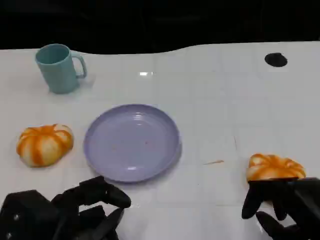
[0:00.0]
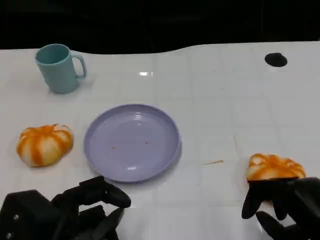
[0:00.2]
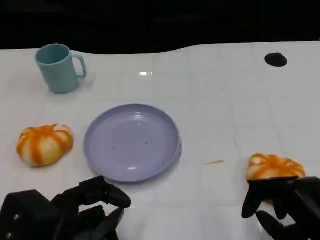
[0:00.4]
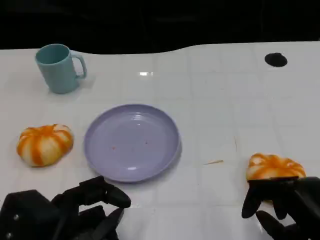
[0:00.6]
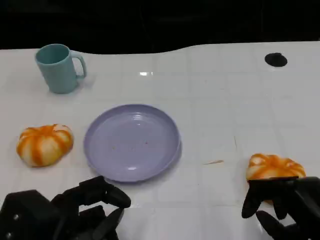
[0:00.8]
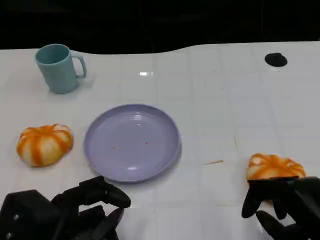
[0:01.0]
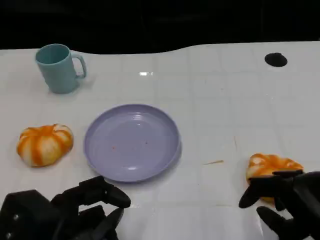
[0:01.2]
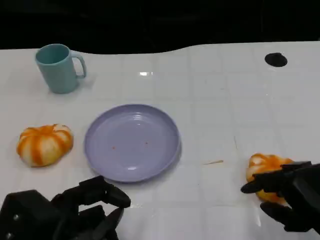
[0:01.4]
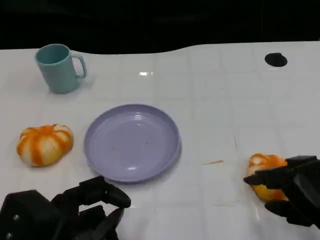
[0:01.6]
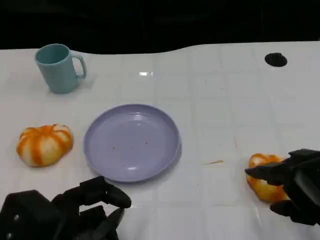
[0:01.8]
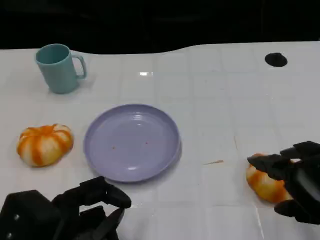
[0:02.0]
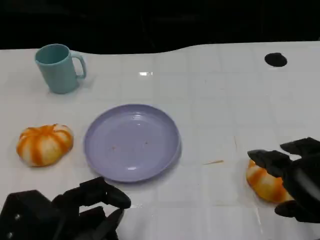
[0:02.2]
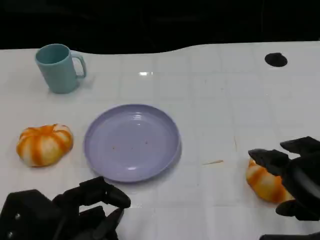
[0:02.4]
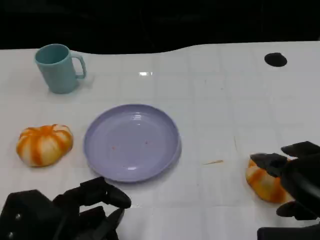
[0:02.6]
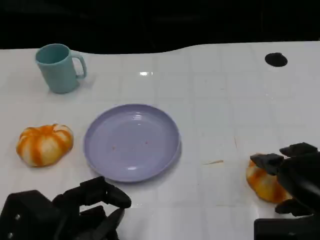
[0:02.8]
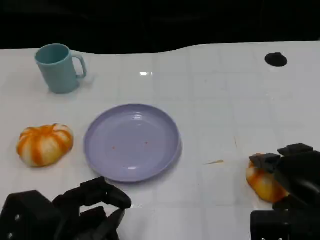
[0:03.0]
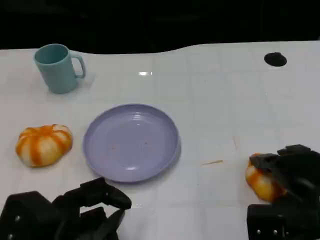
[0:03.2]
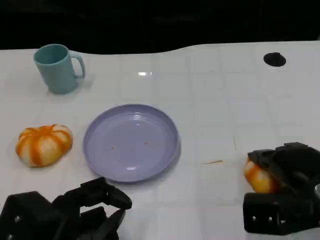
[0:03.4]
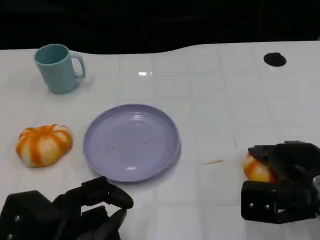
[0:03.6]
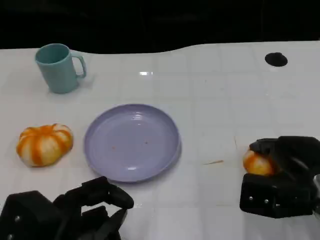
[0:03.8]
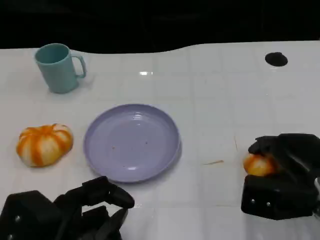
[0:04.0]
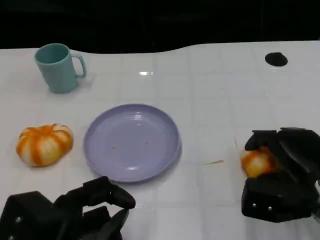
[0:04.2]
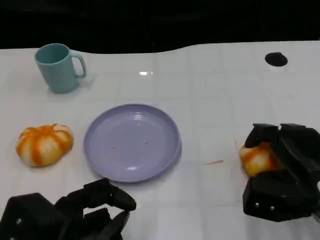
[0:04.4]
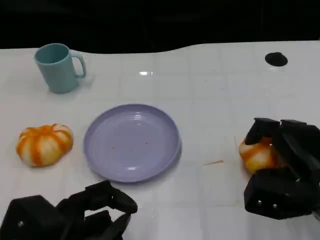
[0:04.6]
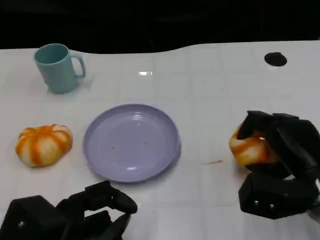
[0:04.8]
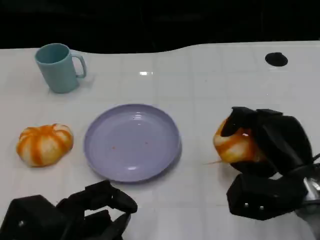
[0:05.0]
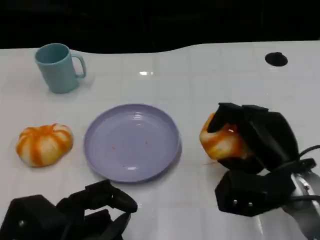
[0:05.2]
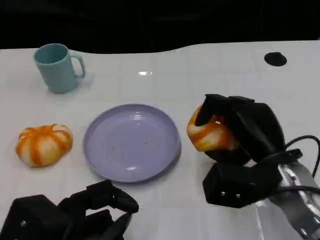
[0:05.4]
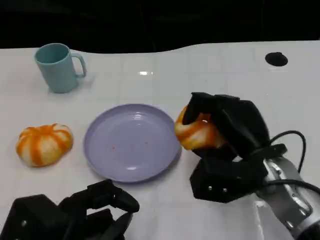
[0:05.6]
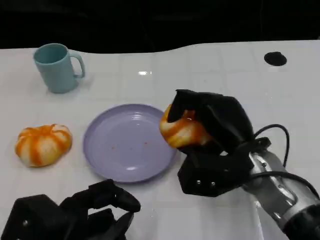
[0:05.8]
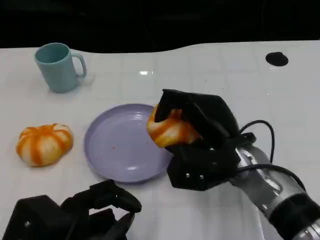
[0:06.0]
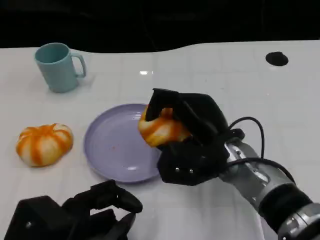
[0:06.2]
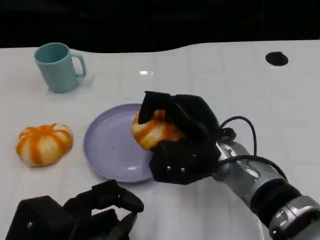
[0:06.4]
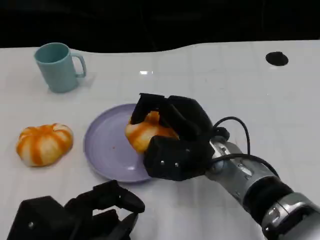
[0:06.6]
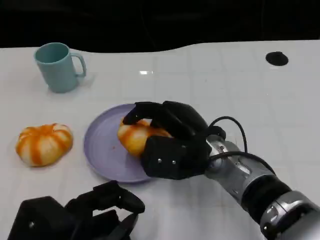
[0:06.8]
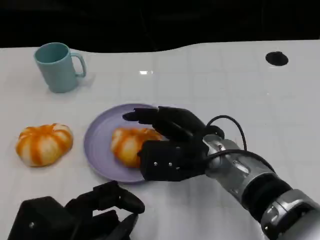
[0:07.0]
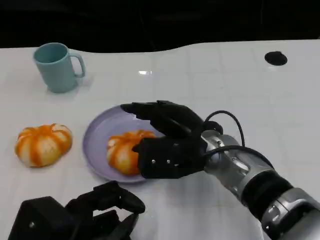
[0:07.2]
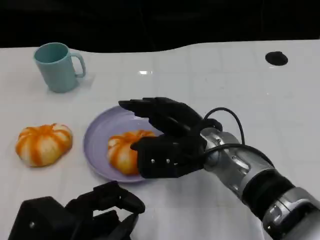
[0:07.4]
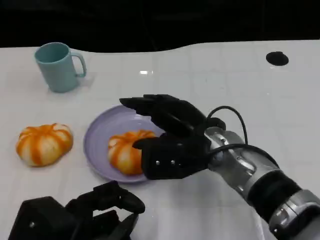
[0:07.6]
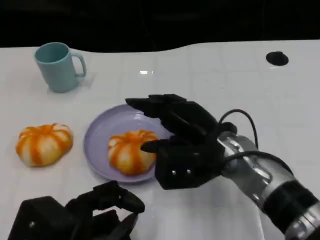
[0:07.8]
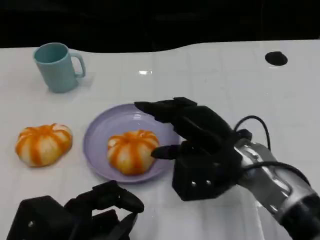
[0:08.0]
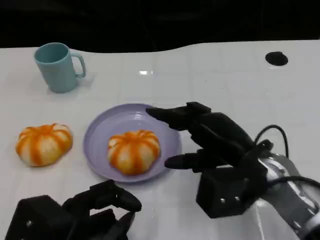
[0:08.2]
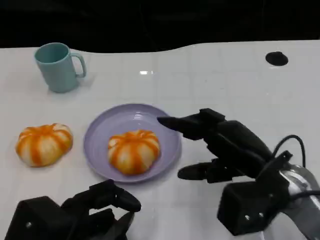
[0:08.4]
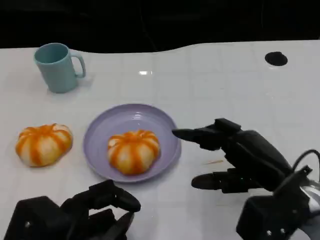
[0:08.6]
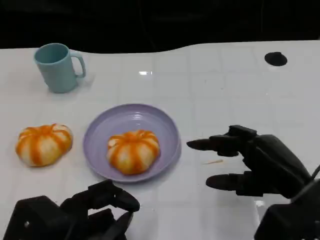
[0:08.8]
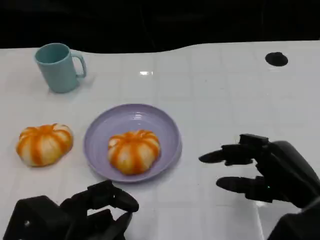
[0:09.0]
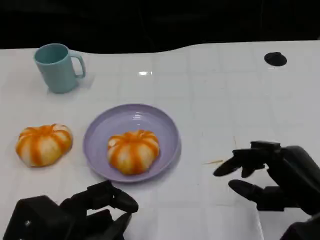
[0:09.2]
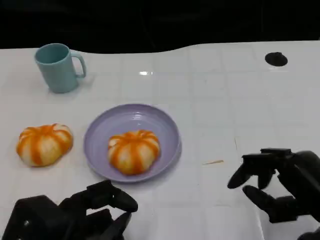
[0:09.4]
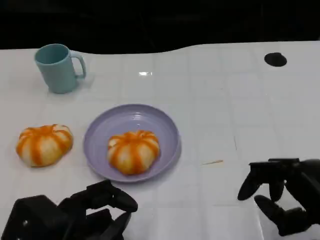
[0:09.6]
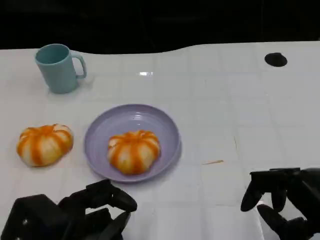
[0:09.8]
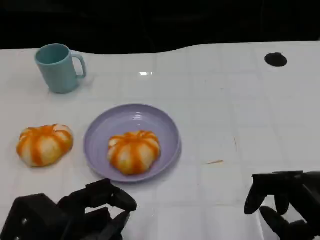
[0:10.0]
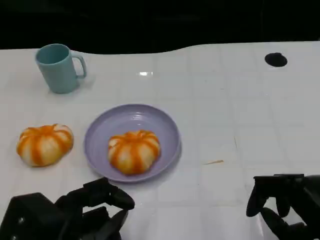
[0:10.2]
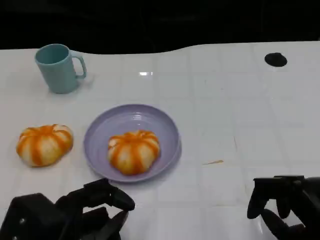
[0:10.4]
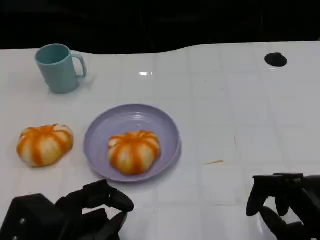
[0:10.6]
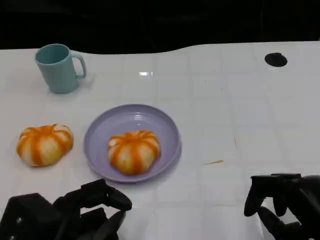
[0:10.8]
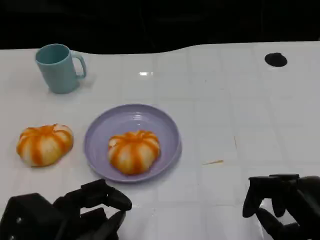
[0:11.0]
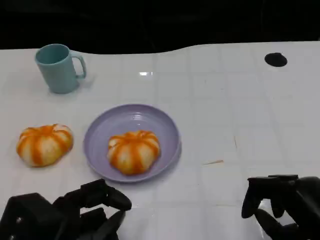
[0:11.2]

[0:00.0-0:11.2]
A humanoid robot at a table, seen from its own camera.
Task of the whole recording: Grasp the bread from the table and place it into the plate.
0:01.6 to 0:03.2: The right hand heads forward, covering about 5 cm.
0:04.8 to 0:06.4: The right hand travels to the left by roughly 15 cm.
0:06.4 to 0:08.0: The right hand shifts roughly 5 cm to the right.
0:08.0 to 0:09.6: The right hand travels to the right and backward by roughly 15 cm.
0:09.6 to 0:11.2: The hands move only a little.

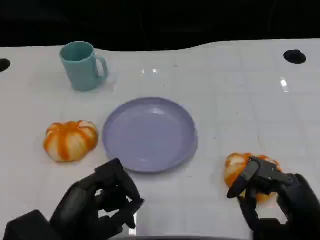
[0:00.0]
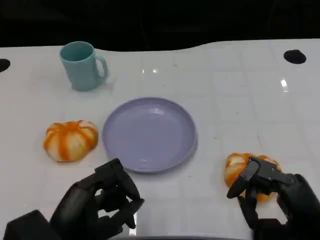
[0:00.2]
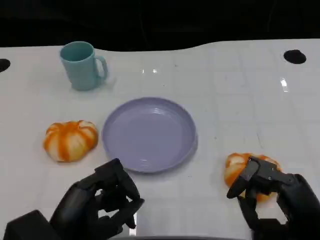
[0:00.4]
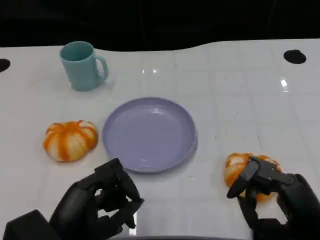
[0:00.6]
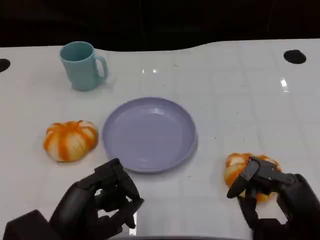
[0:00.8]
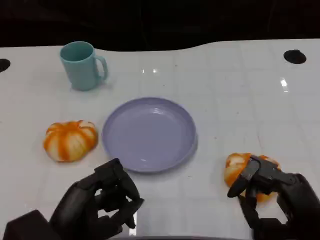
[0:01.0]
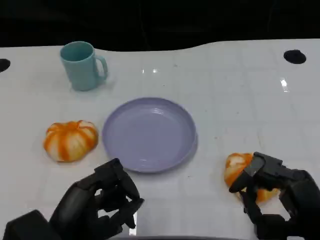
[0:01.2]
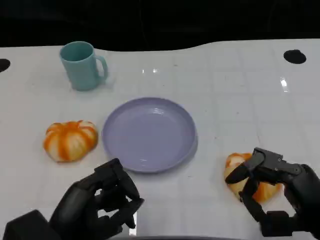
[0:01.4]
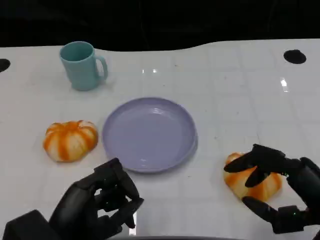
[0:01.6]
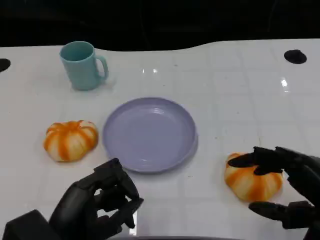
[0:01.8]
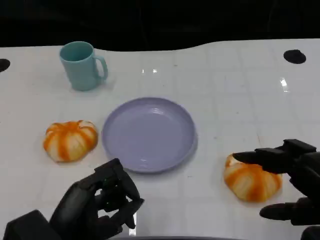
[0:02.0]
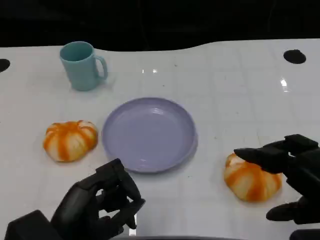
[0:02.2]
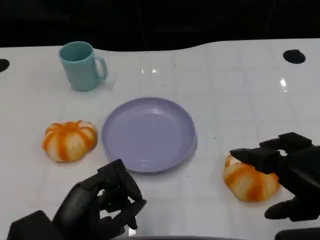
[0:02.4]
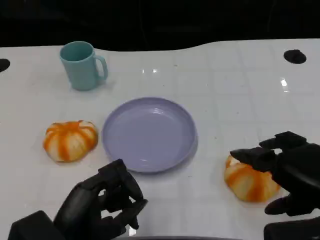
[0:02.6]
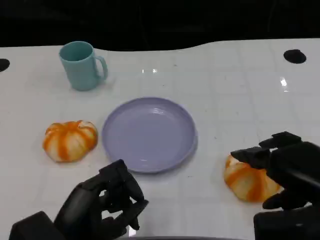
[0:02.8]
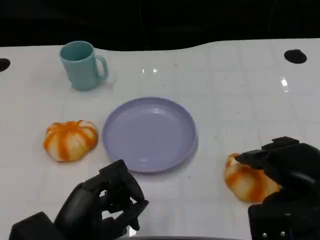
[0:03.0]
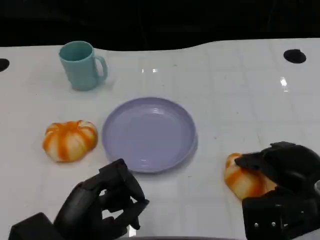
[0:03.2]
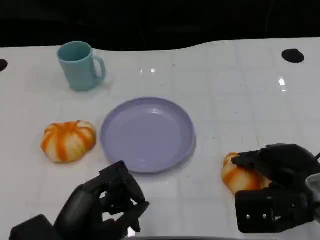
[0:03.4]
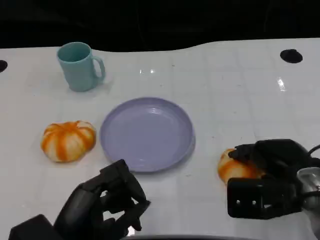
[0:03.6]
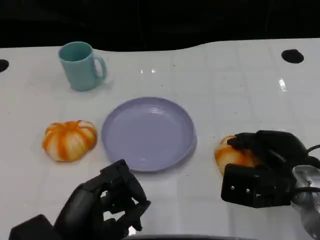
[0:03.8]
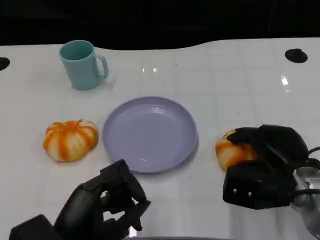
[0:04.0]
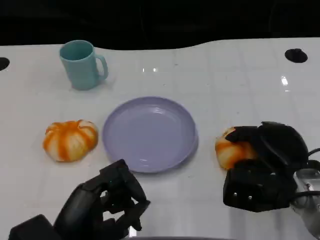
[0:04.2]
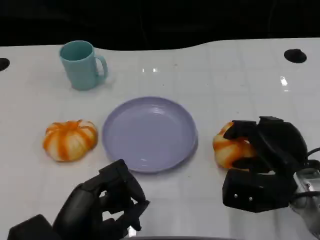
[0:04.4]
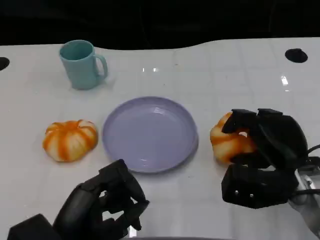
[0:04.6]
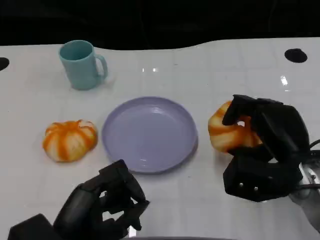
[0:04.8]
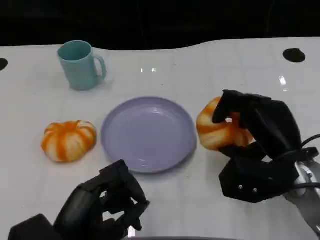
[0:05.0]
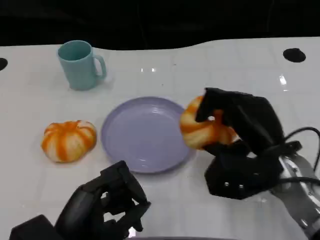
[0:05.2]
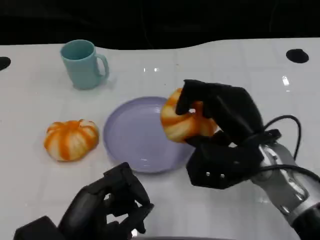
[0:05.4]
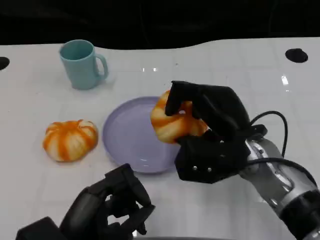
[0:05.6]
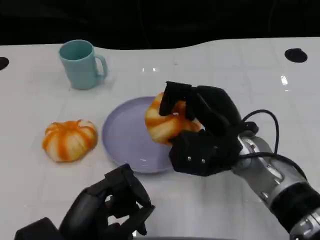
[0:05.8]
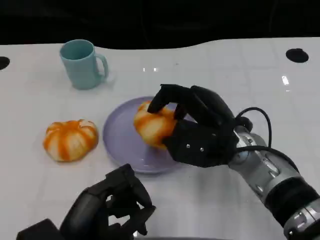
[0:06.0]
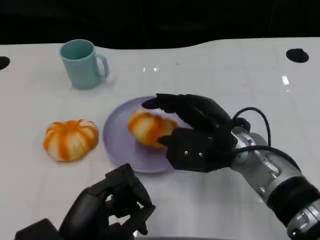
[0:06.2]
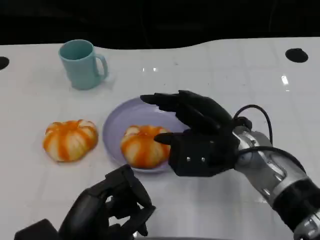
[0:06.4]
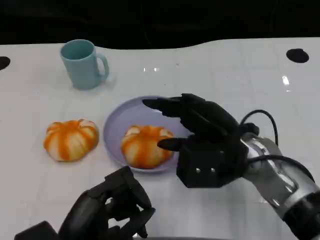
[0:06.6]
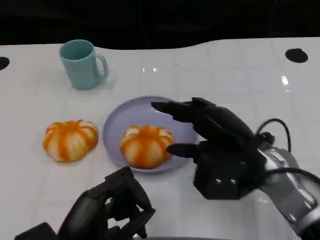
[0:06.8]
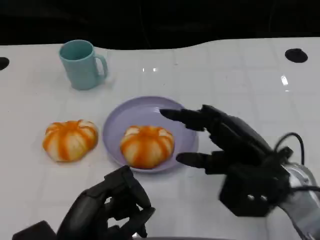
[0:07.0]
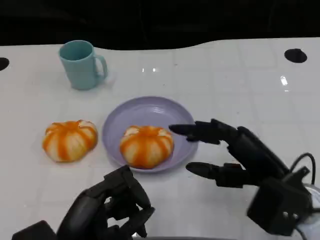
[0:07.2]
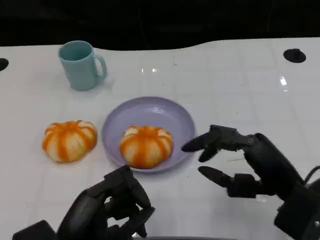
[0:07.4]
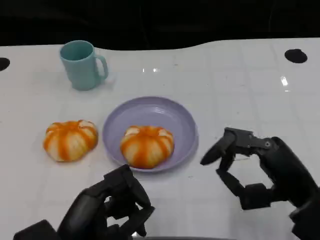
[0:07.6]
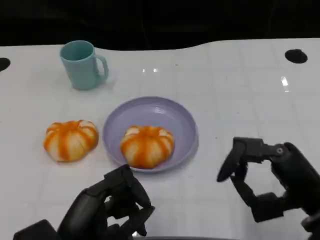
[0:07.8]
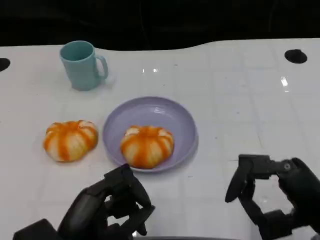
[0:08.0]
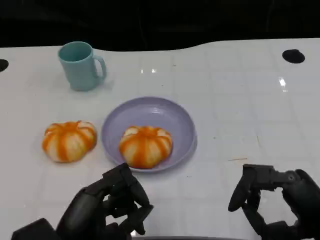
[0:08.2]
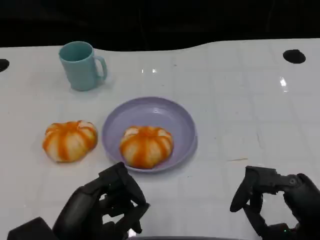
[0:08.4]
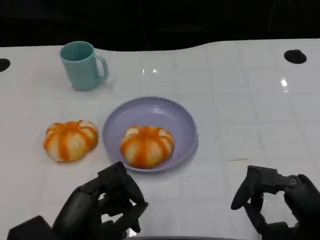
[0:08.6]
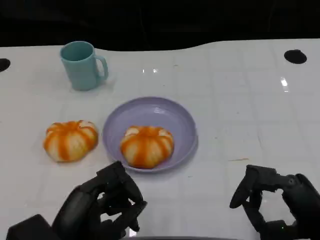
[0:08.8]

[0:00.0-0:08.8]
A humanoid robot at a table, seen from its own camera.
Task of the whole recording: Grasp the bread from the table and place it into the plate.
0:00.0 to 0:01.4: The hands move only a little.
0:01.4 to 0:03.0: The right hand shifts some 5 cm forward.
0:03.0 to 0:04.4: The right hand shifts about 5 cm downward.
0:04.4 to 0:05.8: The right hand shifts some 10 cm to the left.
0:05.8 to 0:07.4: The right hand shifts some 15 cm to the right and backward.
0:07.4 to 0:08.8: The right hand shifts some 5 cm backward.

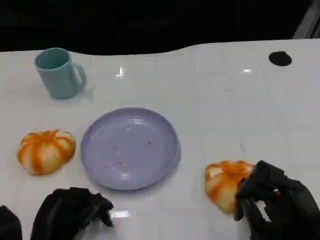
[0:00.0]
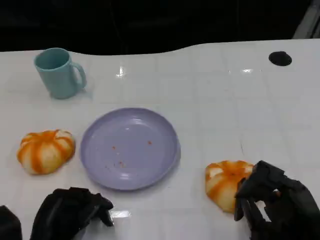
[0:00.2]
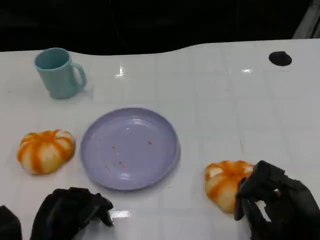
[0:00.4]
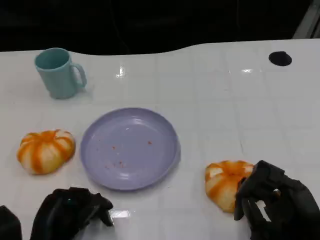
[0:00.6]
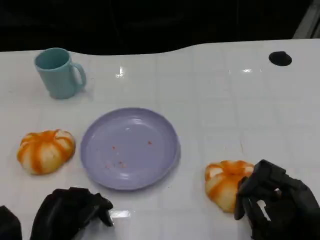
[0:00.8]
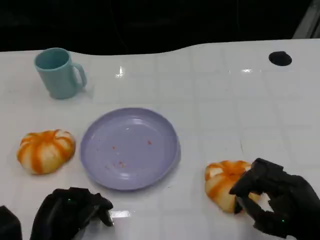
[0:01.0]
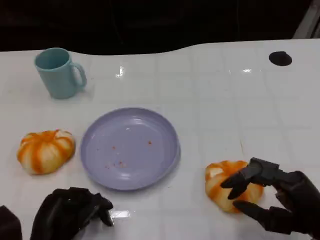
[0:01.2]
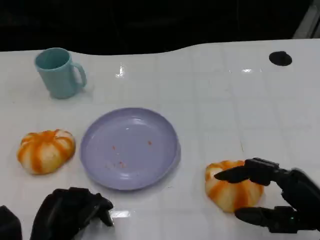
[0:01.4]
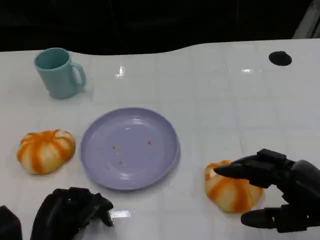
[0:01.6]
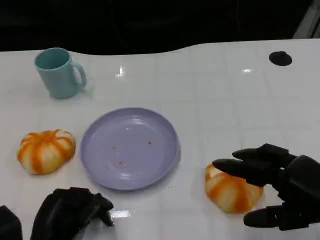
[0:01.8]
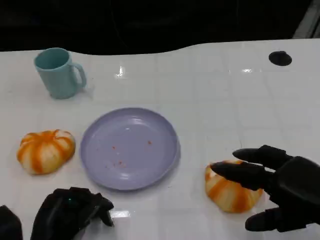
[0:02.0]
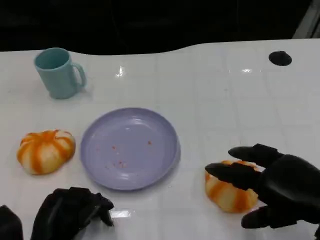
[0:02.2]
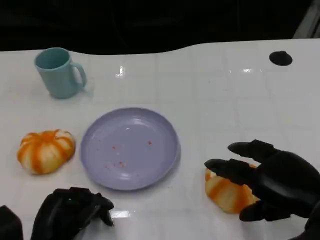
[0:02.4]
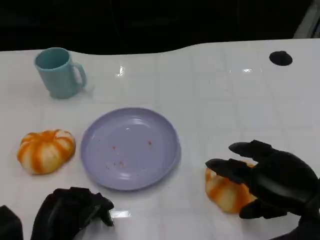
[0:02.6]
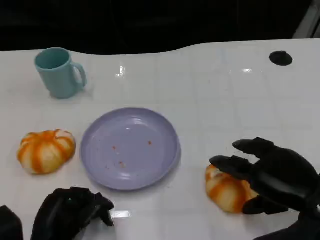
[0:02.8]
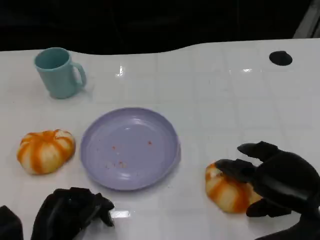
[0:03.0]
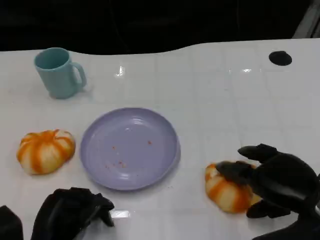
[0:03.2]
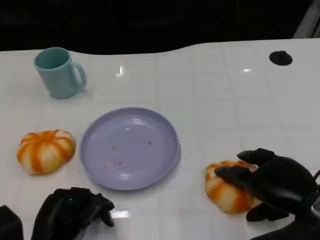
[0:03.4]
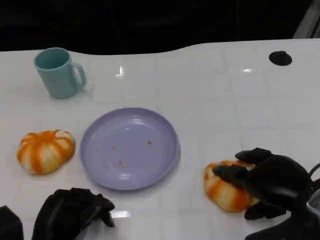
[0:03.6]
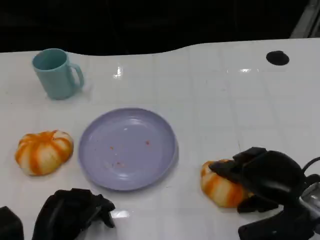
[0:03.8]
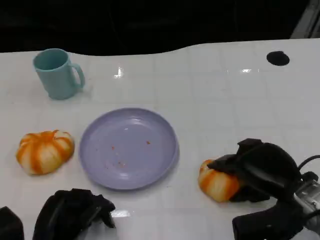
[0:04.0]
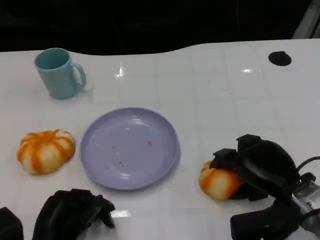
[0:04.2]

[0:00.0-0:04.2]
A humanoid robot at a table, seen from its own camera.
Task of the whole recording: Grasp the bread from the table and place it into the plate.
0:00.0 to 0:01.4: The right hand moves some 5 cm.
0:02.8 to 0:04.2: The right hand shifts by some 5 cm.
